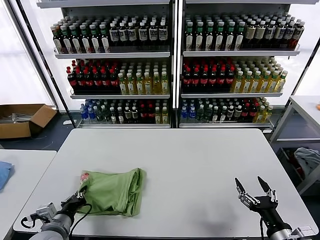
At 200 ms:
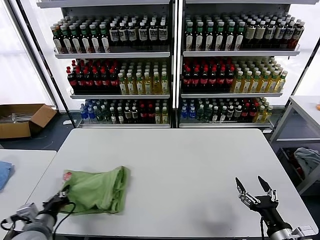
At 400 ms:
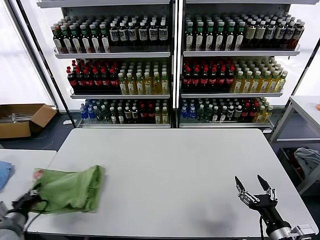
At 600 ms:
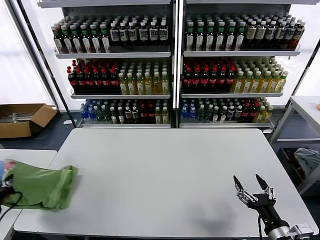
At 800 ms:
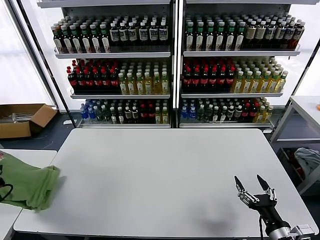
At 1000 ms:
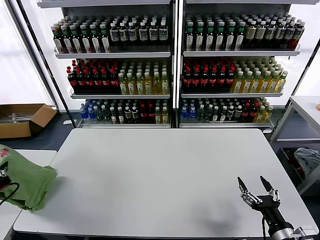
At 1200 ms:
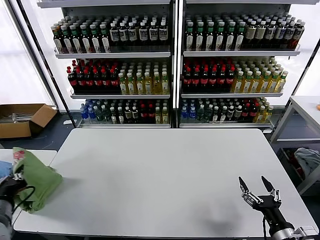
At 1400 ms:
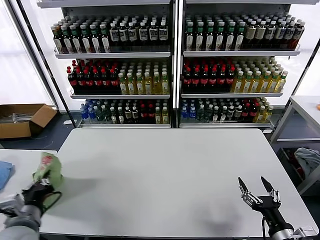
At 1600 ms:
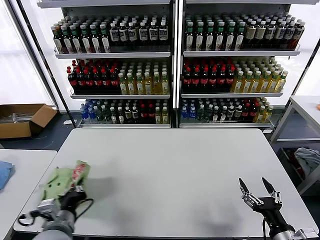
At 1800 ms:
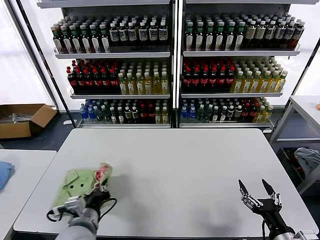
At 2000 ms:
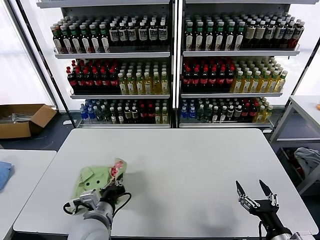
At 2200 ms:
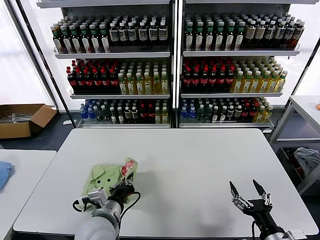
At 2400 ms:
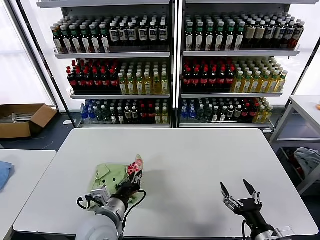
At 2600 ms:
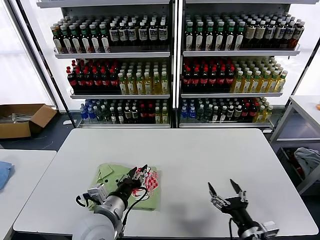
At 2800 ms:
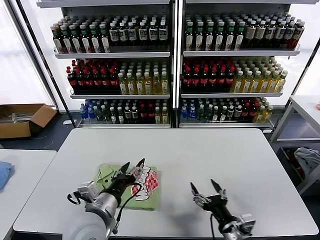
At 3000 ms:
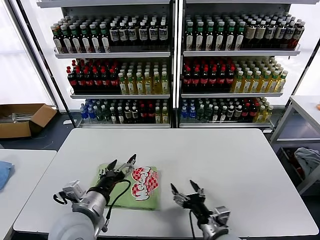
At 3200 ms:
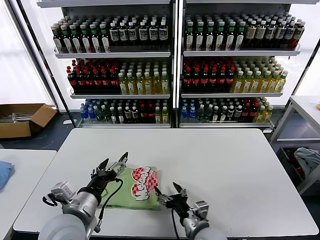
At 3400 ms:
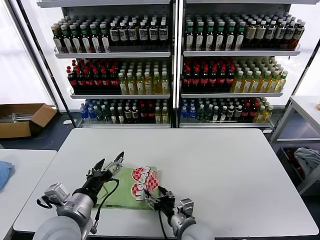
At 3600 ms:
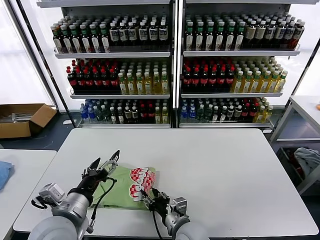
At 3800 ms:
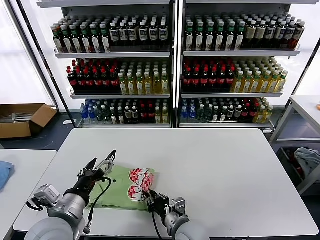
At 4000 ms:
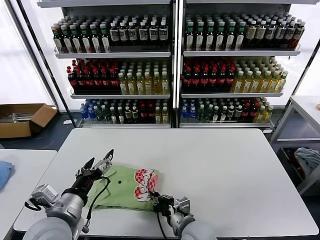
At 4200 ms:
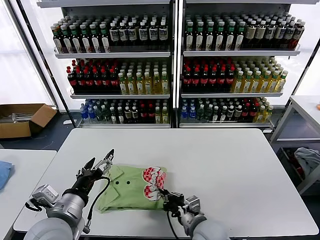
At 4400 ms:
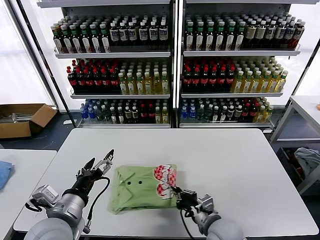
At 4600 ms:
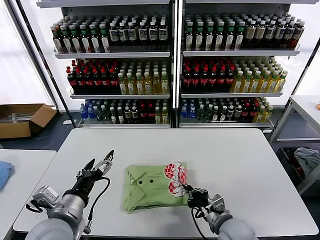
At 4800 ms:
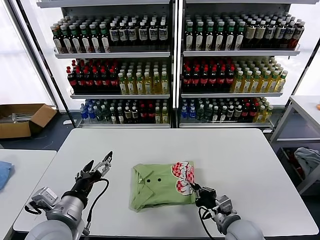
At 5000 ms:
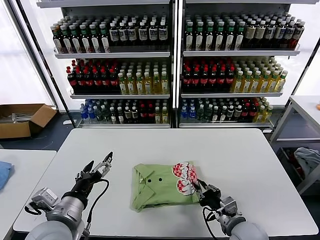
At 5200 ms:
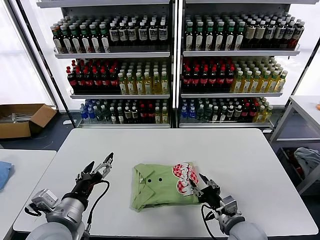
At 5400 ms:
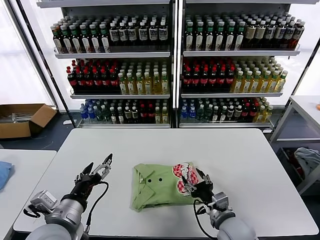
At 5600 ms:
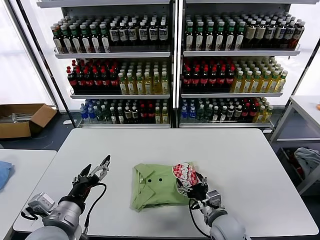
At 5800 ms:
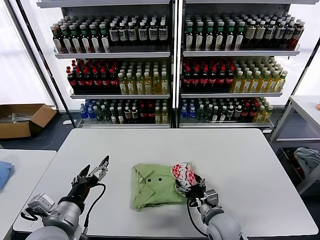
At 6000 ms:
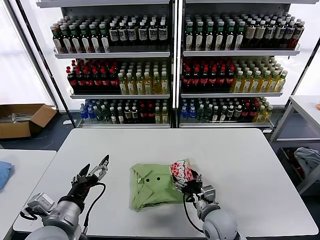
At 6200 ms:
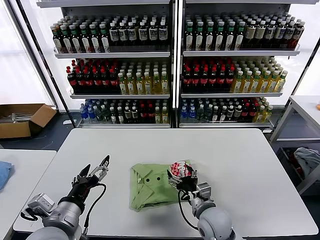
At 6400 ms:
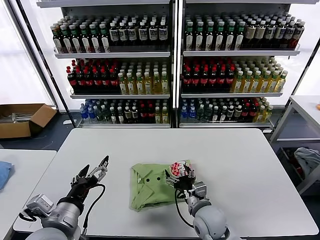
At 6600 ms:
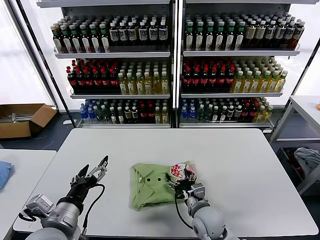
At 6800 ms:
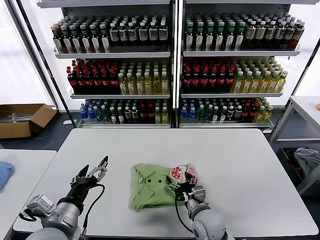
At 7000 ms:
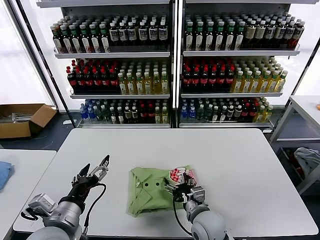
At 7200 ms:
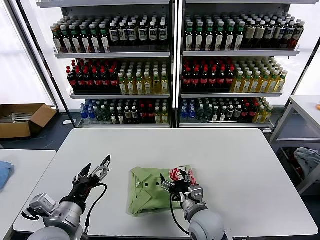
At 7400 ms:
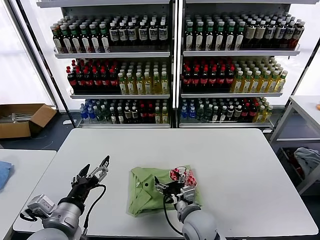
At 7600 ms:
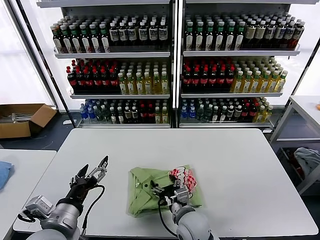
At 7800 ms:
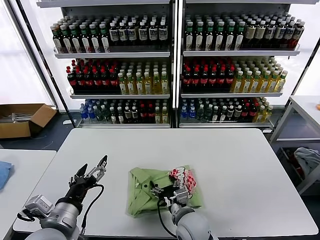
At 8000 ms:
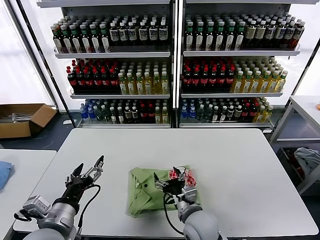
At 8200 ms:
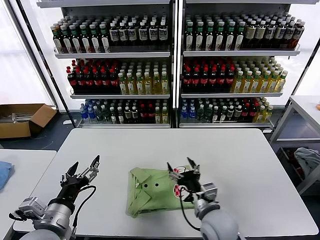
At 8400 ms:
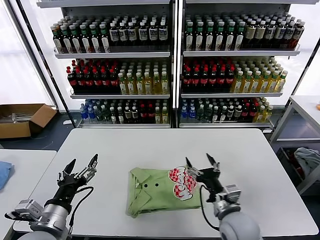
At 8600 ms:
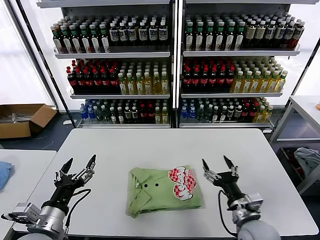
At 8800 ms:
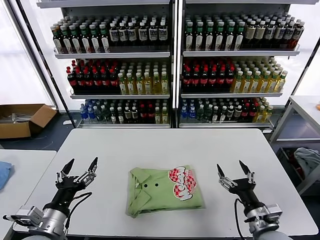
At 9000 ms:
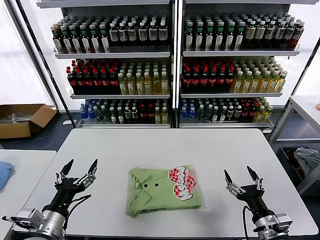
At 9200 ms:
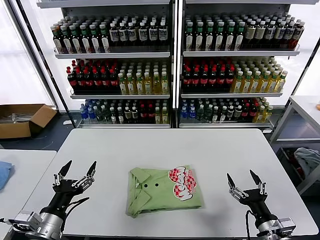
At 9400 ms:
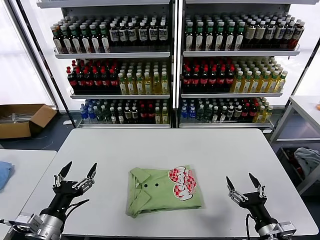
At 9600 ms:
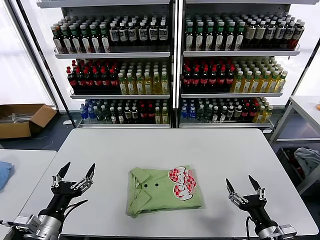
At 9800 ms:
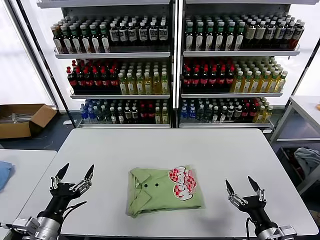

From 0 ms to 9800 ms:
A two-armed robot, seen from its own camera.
Task of the whole recording: fold and organize the clothes.
Step, from 0 ms to 2600 ms: Flip the folded clothes over with left gripper.
Step, from 2800 ms to 7800 ms: Drag the clothes to the center of the table.
From 0 ms to 1400 ms: The left gripper goes approximately 10 cm upward, and reaches approximately 15 cm to the left, then returns.
From 1400 ms to 2800 ms: The left gripper goes about 20 cm to the right, and opens its fingers. The right gripper travels to the left by about 10 cm.
From 2800 ms to 4200 ms: The left gripper heads to the left, covering about 5 cm. The right gripper heads to the left and forward, covering about 10 cm, and closes.
From 4200 ms to 5600 ms: The right gripper travels to the right by about 5 cm, and opens up.
From 5600 ms to 7000 ms: The right gripper goes roughly 5 cm to the left.
From 7000 ms to 8400 ms: The right gripper moves to the right and upward, about 10 cm.
From 8400 ms to 9800 ms: The left gripper shifts by about 5 cm. Meanwhile the right gripper moves to the right and backward, approximately 15 cm.
